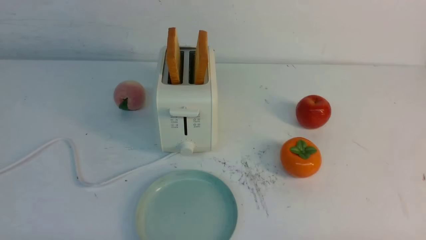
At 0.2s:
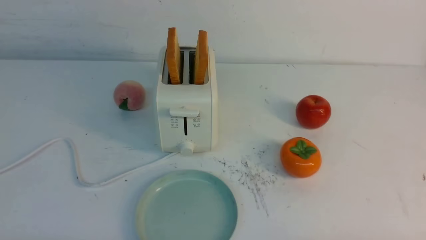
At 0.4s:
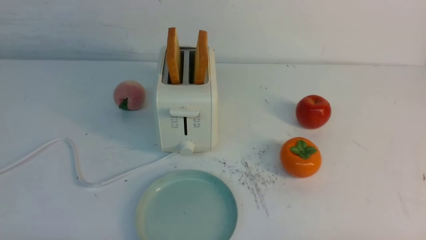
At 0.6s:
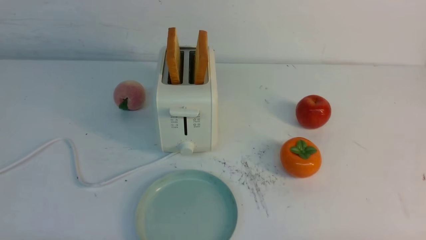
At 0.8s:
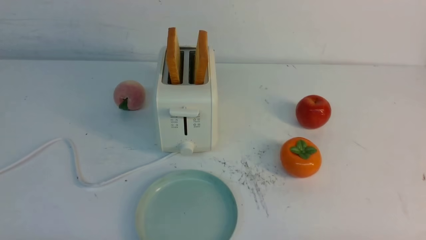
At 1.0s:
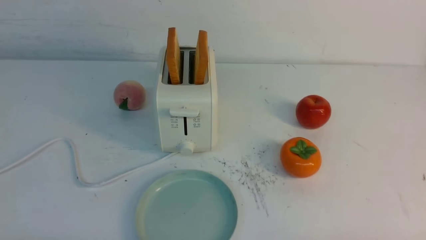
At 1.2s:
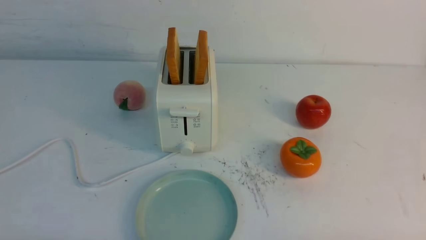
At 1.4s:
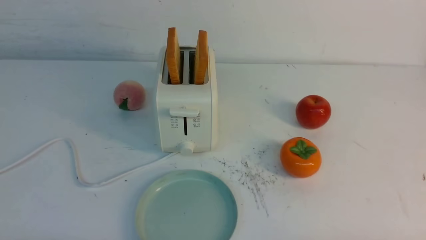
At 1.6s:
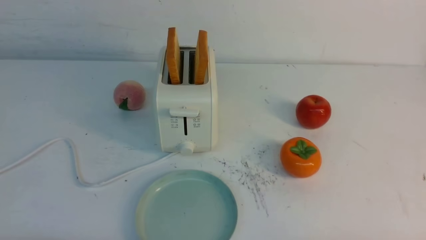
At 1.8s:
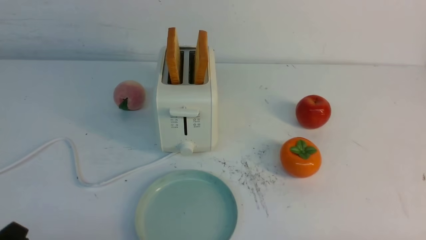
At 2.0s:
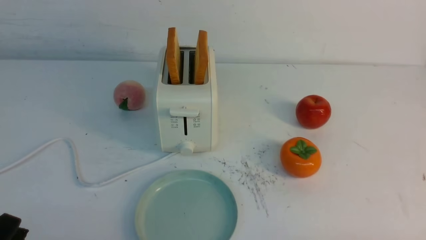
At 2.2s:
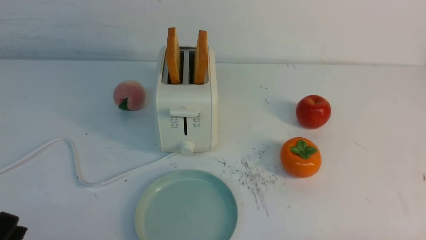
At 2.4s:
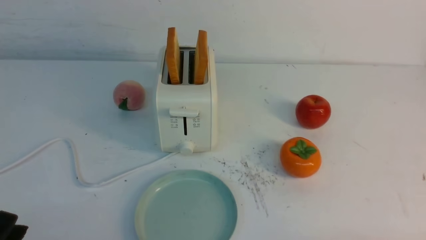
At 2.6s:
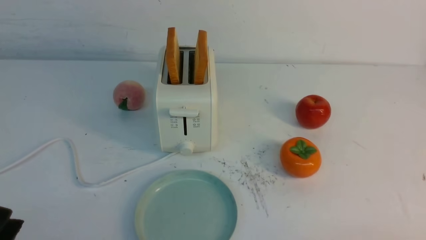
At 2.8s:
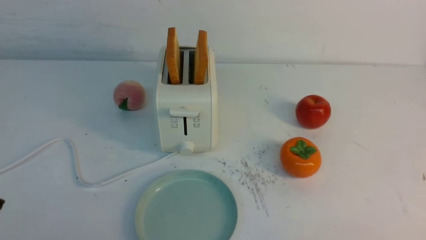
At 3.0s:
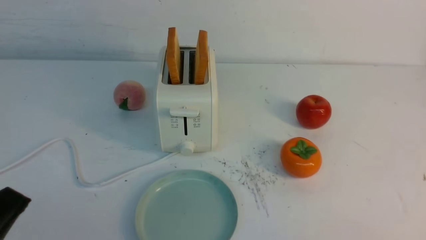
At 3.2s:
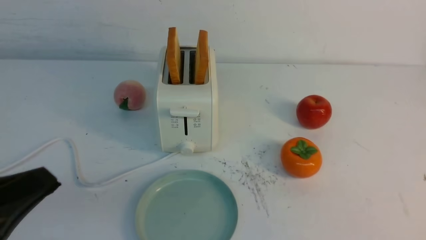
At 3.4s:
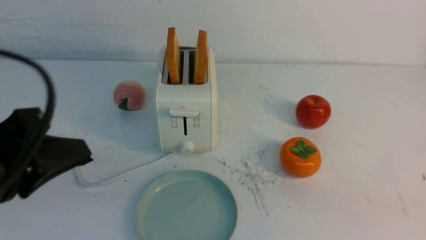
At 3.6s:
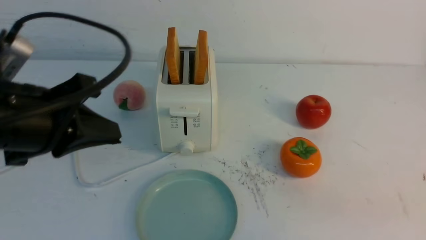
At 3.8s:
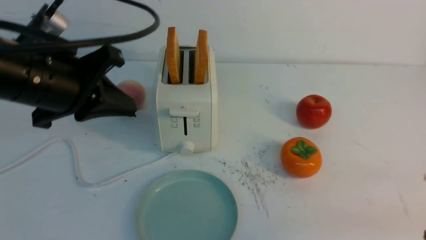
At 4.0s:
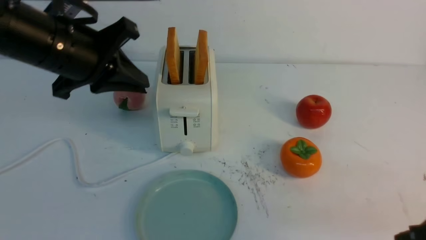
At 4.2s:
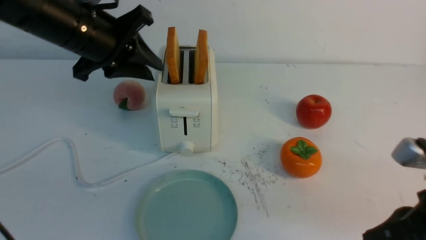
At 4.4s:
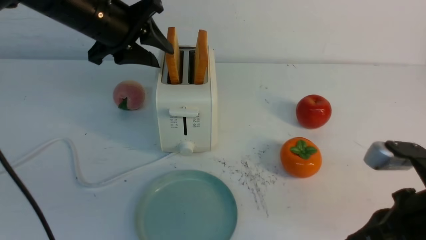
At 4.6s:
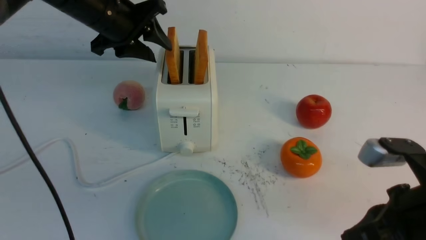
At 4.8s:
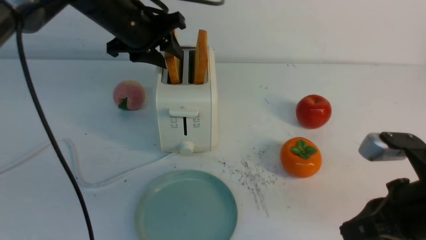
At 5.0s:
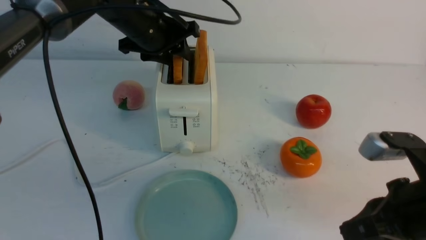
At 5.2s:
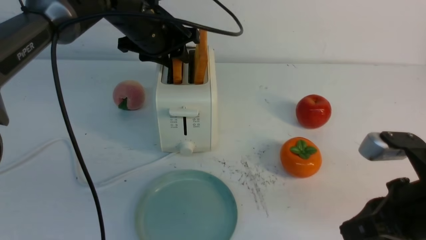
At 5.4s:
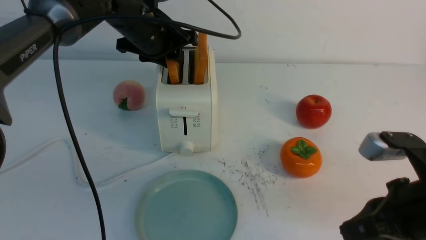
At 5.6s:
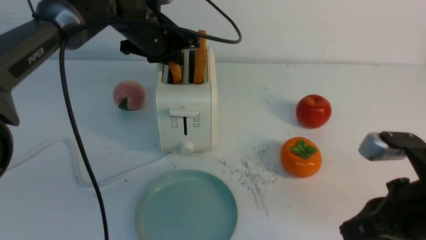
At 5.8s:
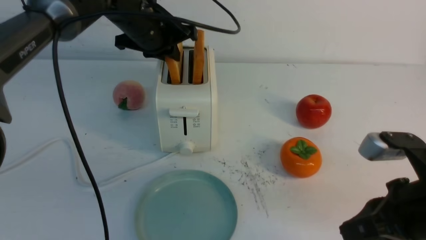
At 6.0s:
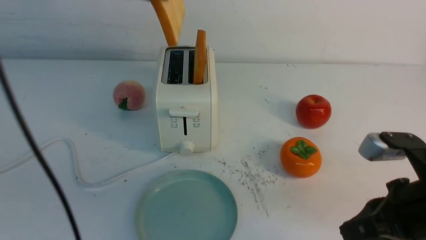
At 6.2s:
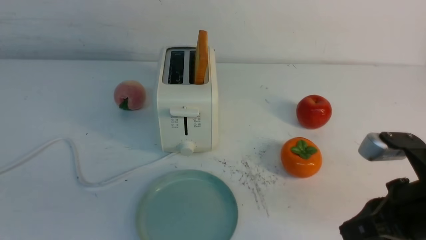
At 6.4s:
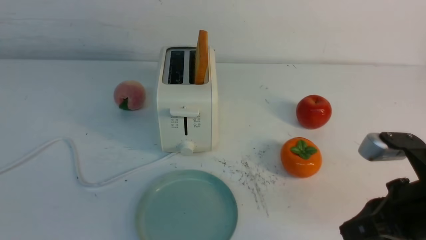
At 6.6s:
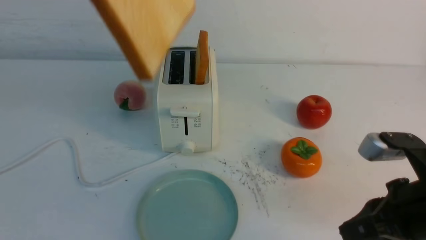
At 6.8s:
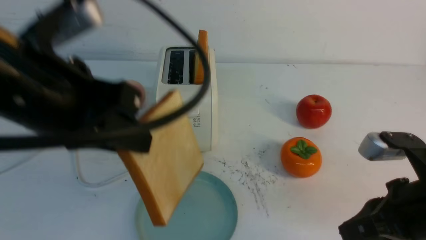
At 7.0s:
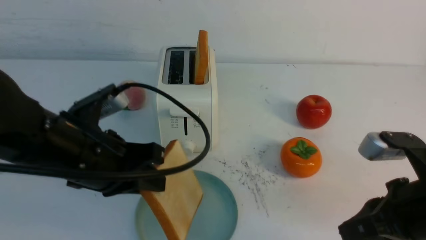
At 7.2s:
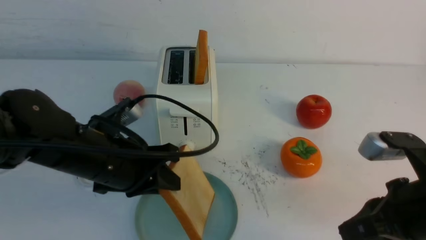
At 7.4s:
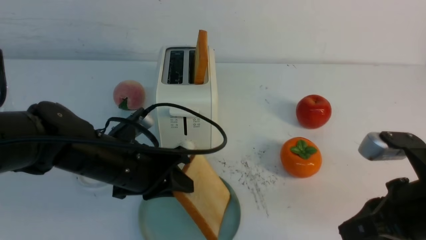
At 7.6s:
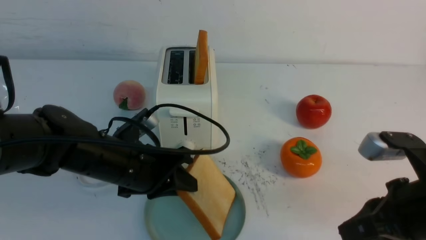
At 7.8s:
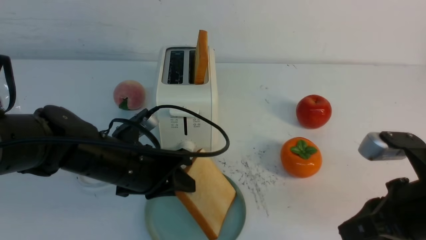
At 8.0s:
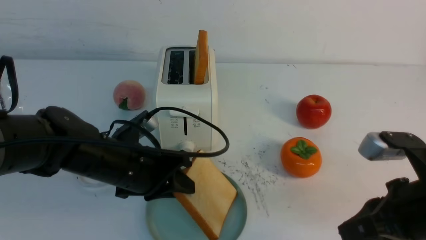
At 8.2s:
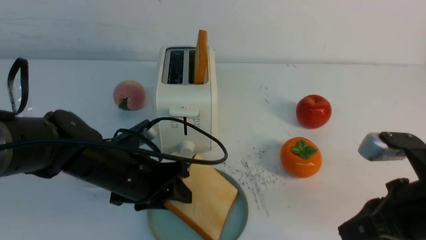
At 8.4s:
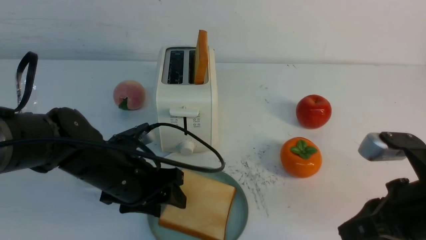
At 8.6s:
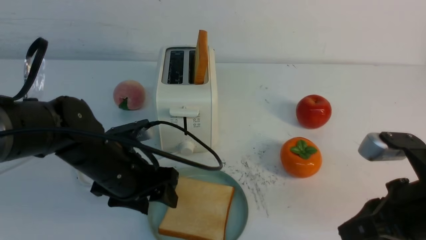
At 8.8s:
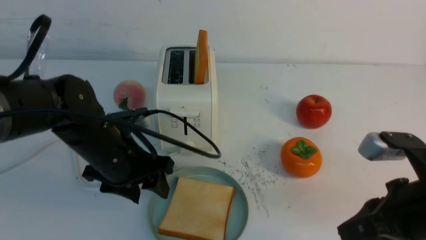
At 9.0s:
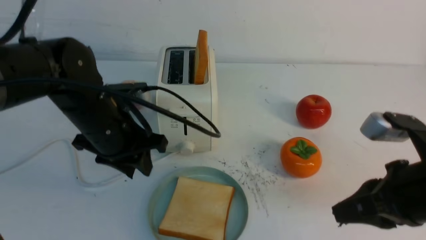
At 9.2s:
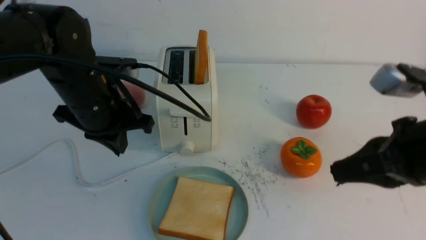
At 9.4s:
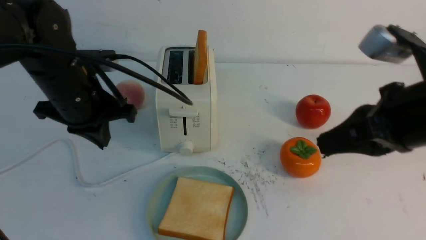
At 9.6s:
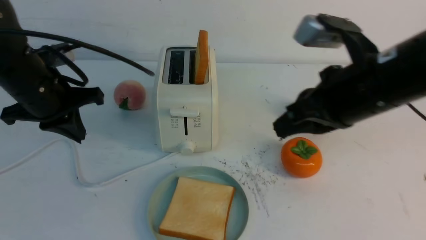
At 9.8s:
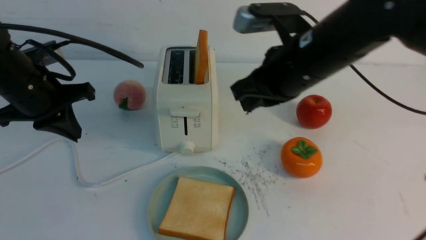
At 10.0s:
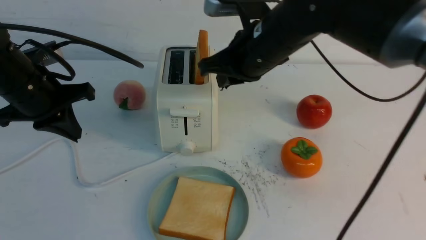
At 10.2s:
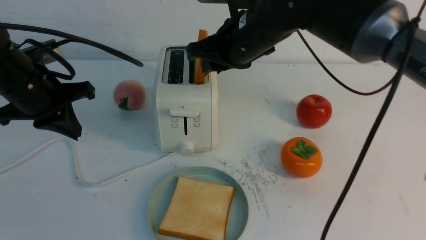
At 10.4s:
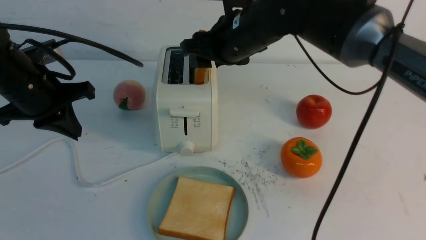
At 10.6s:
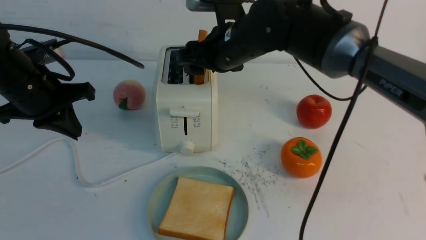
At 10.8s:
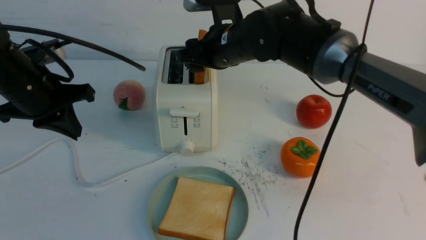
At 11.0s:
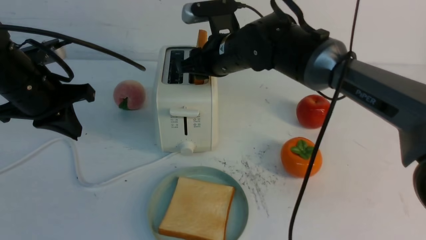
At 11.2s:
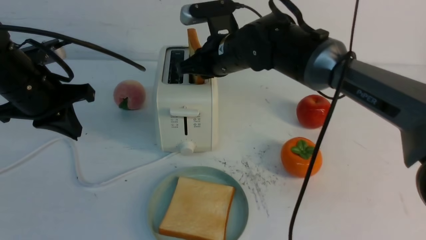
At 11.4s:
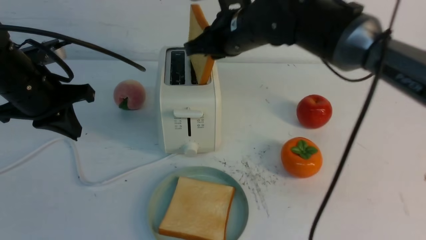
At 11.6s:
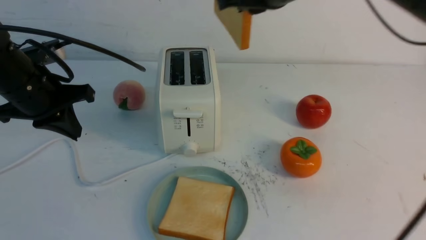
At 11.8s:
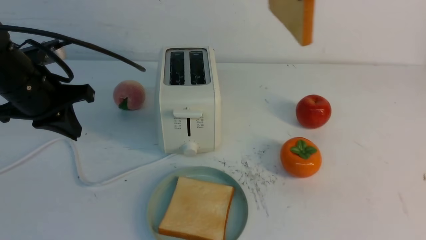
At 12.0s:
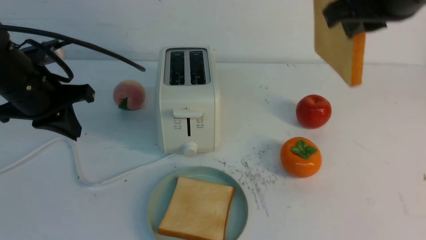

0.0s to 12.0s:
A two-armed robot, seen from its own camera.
Task of the whole recording: take toasted bread from bread machine on white table place on plate.
Step, 0.0s to 5.8s: use the left arm to take out a slice of bread.
Step, 6.2s to 8.6s: use the left arm to put a slice of bread into the empty plate.
Step, 9.0s to 11.2s: use the right arm to take out a slice of bread.
1.6s to 3.0s: The left gripper heads upward, covering roughly 10 cm, and closes.
3.0s to 4.4s: The left gripper heads forward, covering about 35 cm, and opens, while the right gripper shifts roughly 15 cm forward, to the left and upward.
4.4s to 6.0s: The left gripper is displaced upward by approximately 10 cm, and closes.
6.0s to 7.6s: The left gripper shifts about 30 cm downward and backward.
7.6s to 9.0s: The left gripper moves upward, approximately 5 cm, and opens and closes again.
9.0s to 10.4s: The left gripper heads to the left, covering approximately 10 cm, and closes its fingers, while the right gripper travels forward and to the left by roughly 30 cm, and opens up.
10.4s to 12.0s: The right gripper goes roughly 20 cm to the right, backward and upward, and closes its fingers.

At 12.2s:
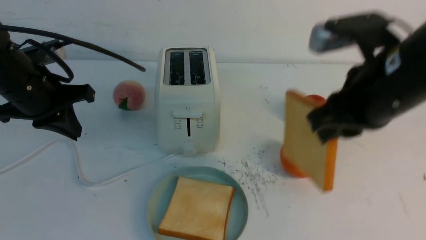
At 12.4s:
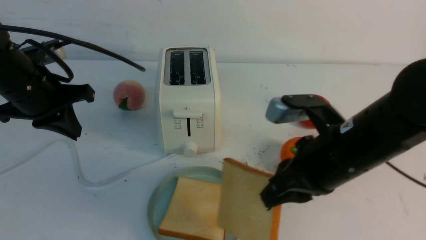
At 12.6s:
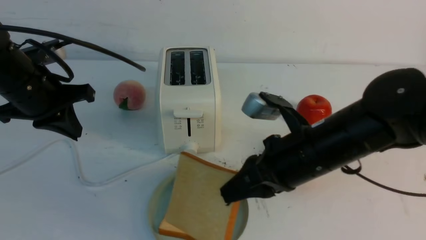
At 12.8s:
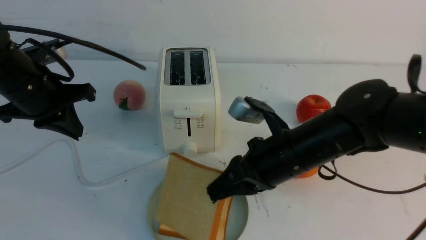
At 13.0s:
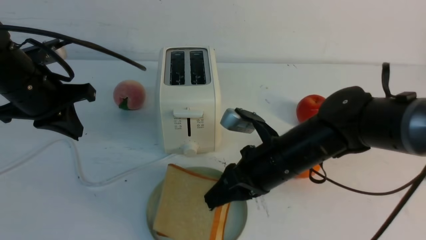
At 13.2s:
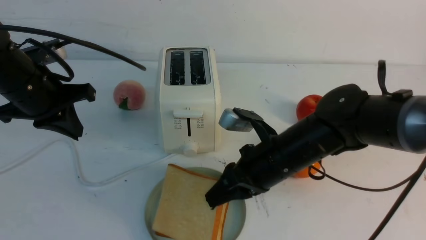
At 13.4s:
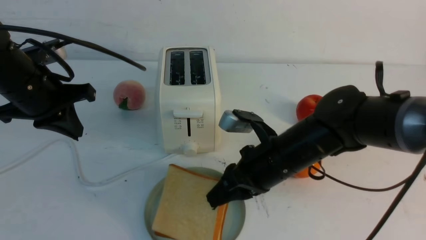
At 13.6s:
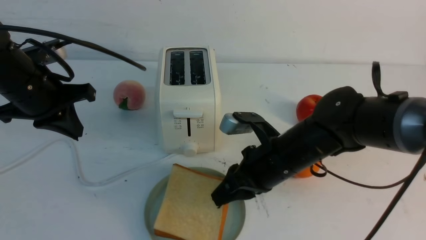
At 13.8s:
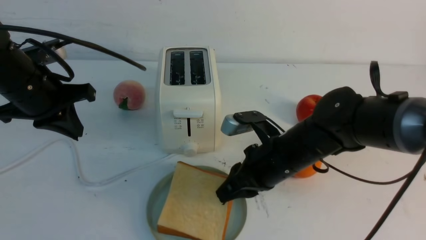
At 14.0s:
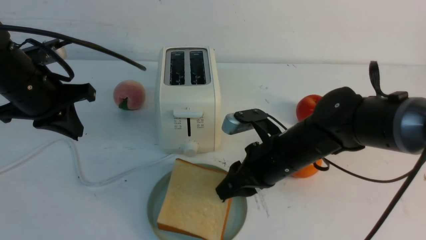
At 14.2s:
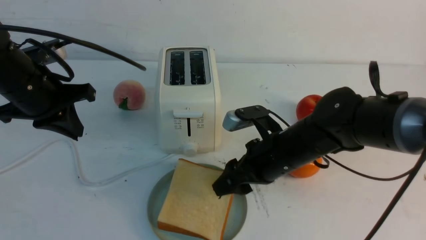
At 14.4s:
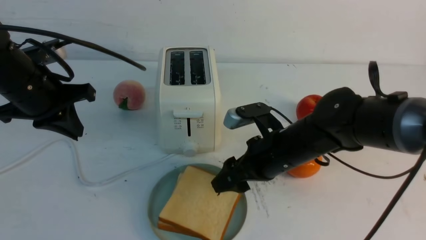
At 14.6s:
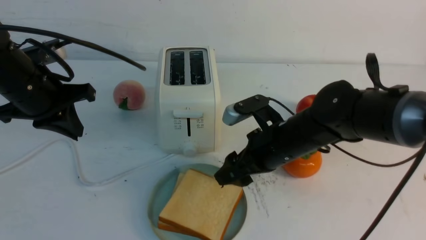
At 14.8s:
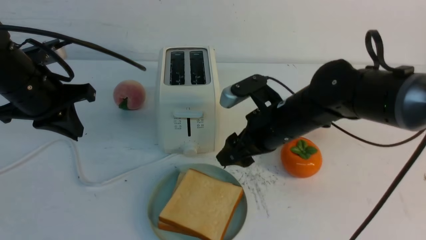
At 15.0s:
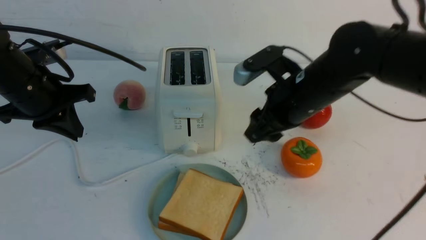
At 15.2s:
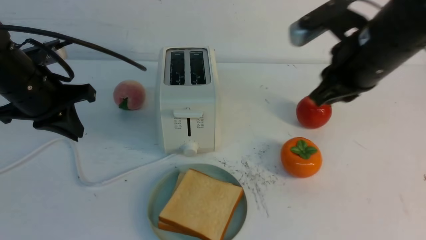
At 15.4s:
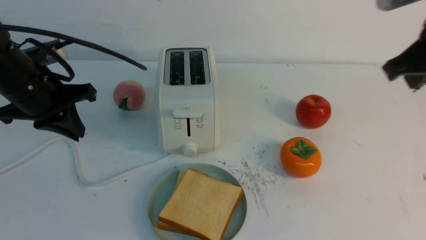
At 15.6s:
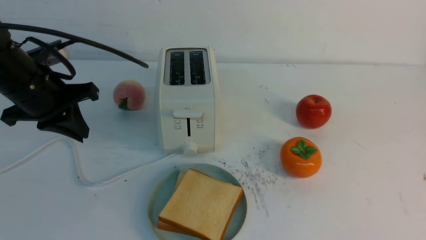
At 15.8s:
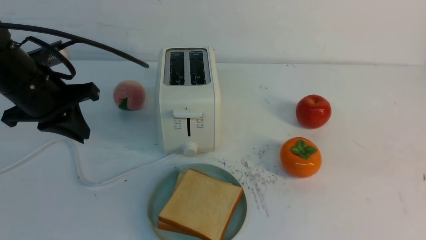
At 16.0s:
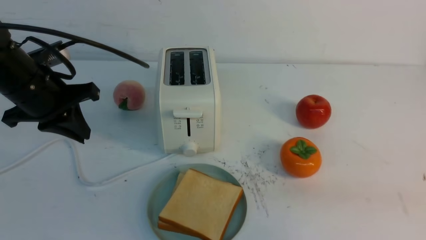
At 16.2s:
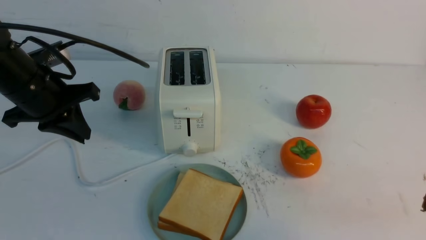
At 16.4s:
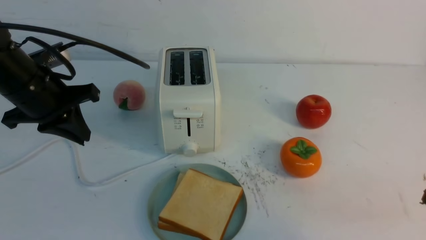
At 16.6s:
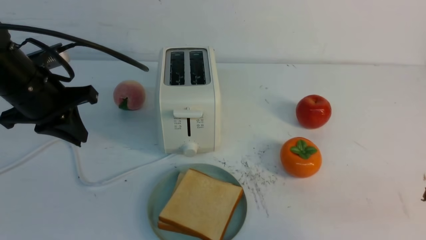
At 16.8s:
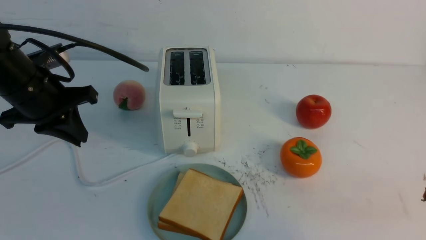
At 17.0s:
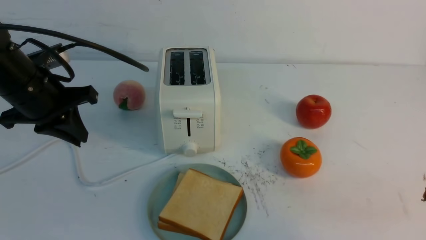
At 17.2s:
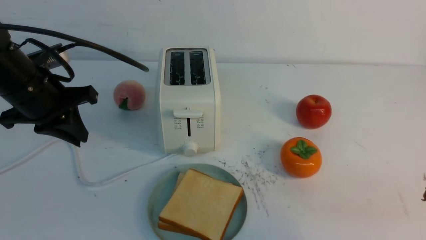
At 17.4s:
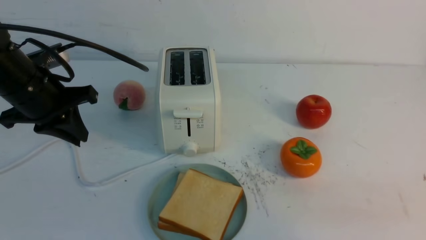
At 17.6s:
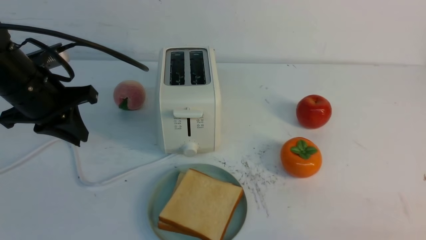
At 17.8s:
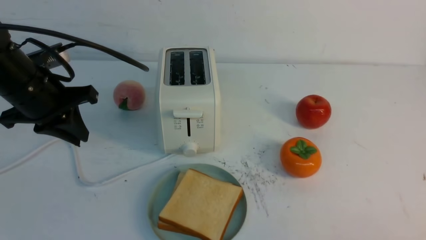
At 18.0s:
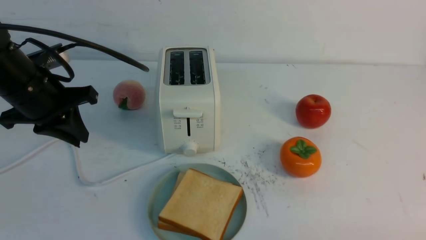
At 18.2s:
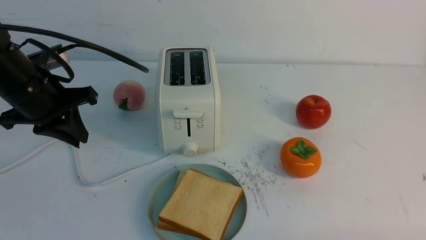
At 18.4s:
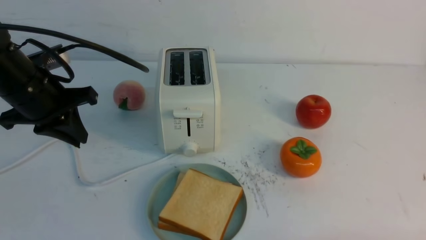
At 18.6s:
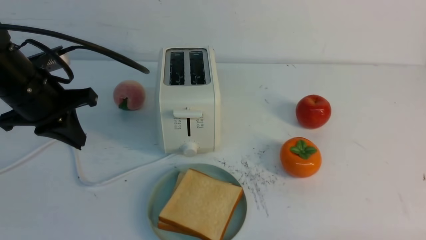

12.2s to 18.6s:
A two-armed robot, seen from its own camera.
Task of the whole recording: take toasted bread from bread machine on white table place on plate.
Step, 12.2s to 14.6s: use the right arm to put a slice of bread into the plate.
12.2s to 13.8s: The right gripper shifts roughly 15 cm downward and to the left.
13.8s to 15.4s: The right gripper moves upward and to the right, about 25 cm, and opens and closes again.
15.4s to 17.0s: The right gripper heads backward and downward, covering about 20 cm.
